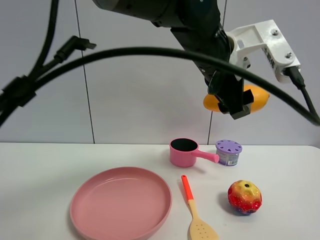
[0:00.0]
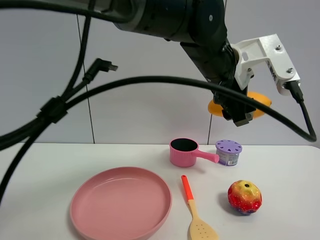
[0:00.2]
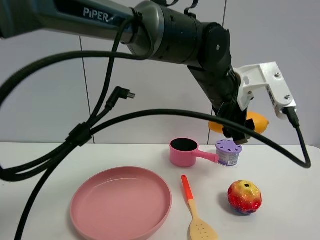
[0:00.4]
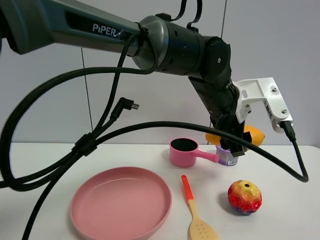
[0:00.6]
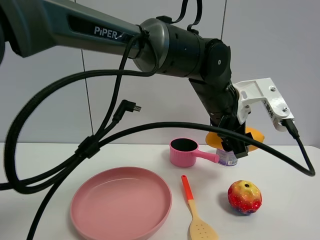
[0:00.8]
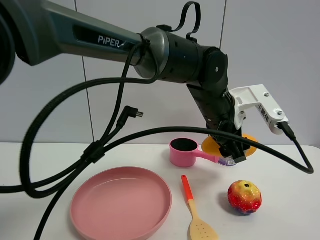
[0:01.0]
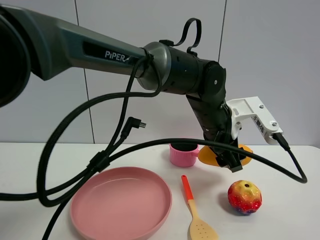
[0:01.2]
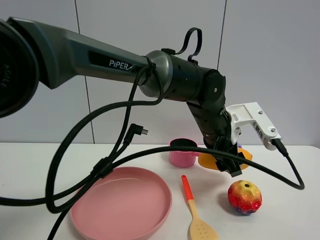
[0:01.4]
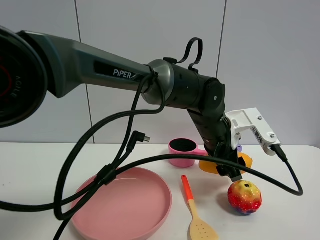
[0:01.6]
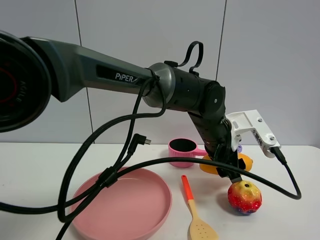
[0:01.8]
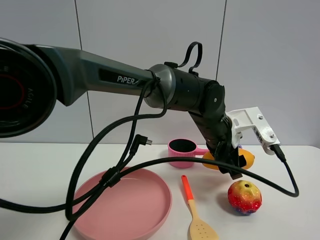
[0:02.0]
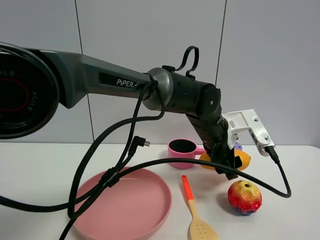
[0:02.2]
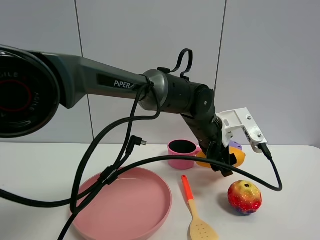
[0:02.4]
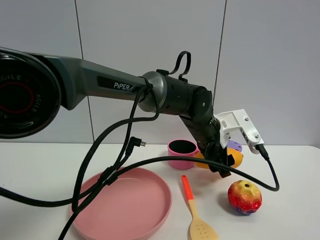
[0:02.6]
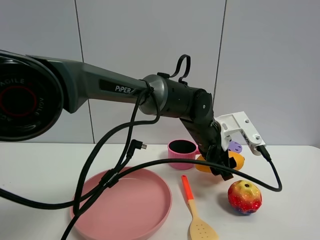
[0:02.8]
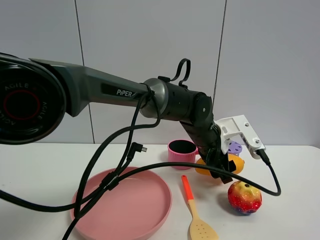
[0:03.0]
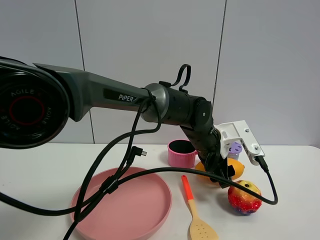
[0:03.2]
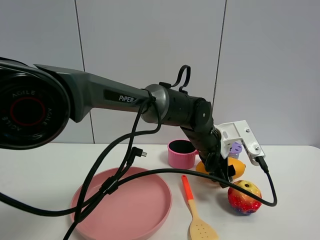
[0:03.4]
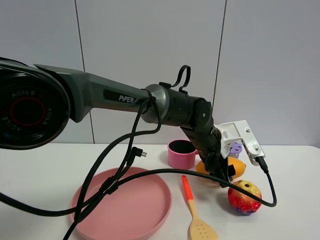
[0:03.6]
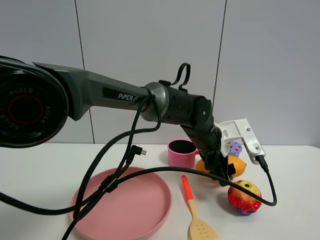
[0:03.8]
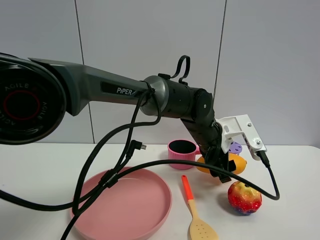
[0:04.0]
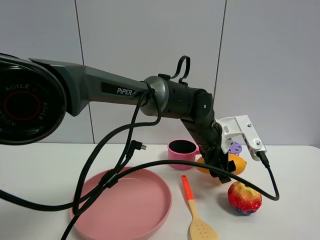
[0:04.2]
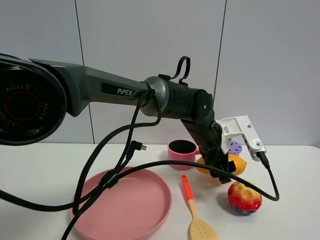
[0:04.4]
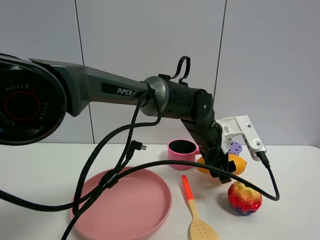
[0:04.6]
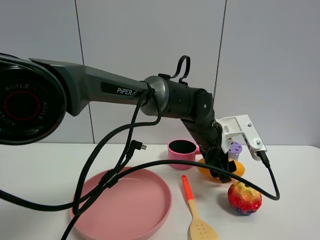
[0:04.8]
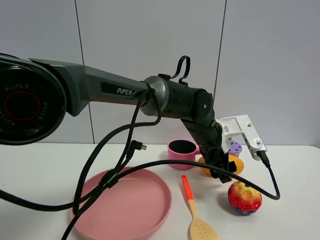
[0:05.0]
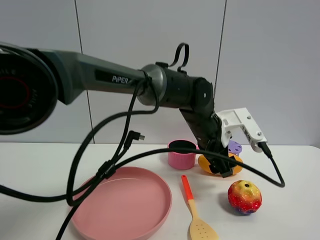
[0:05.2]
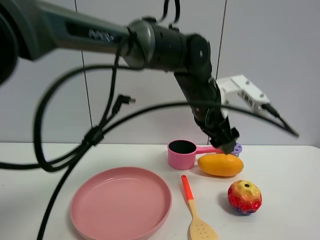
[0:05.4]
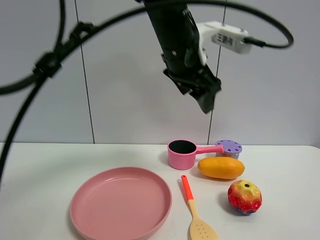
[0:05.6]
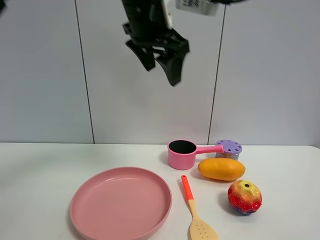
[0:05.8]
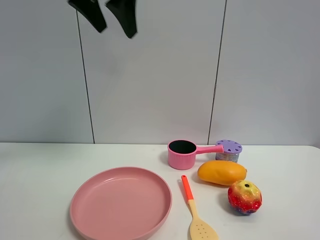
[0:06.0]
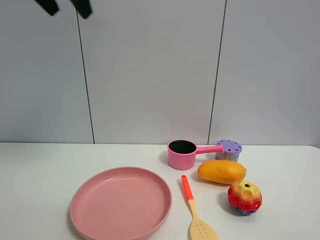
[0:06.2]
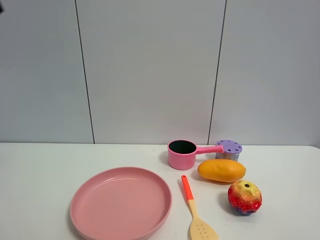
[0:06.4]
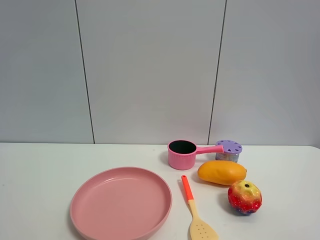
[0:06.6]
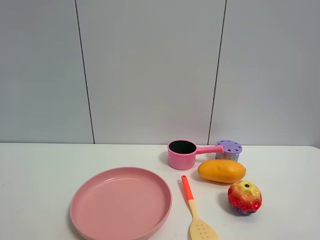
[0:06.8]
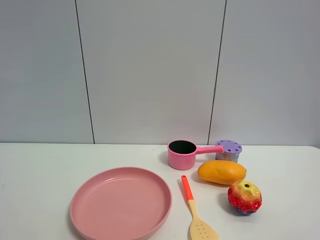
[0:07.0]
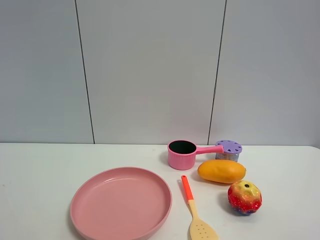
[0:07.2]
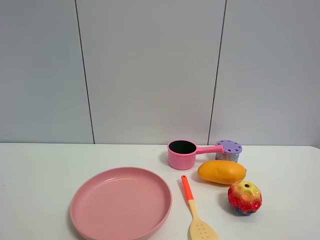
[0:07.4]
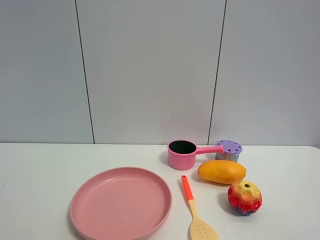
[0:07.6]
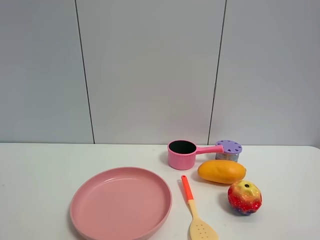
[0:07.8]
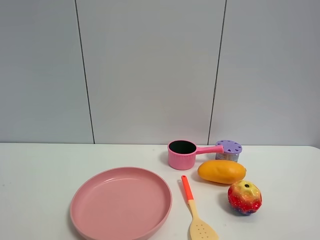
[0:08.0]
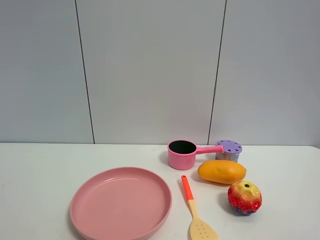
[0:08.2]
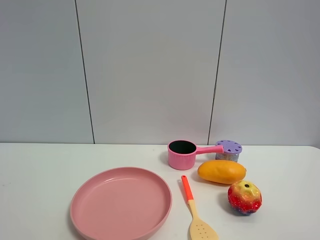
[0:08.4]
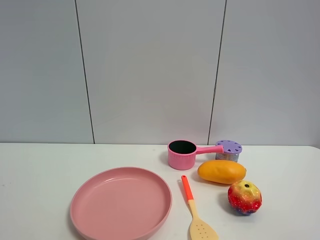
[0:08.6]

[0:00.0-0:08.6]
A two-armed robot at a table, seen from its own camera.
Task of the whole recording: the gripper move the object.
Step, 0:00.0 to 0:05.0: Place the mango on the table with the left gripper.
0:00.0 to 0:01.4: The left gripper goes about 10 cm downward.
0:02.8 to 0:04.4: The grippers make only small movements.
0:04.4 to 0:05.8: The left gripper is displaced upward and to the left by about 30 cm, and opens up.
0:05.8 to 0:07.2: The left gripper goes approximately 40 cm backward and to the left.

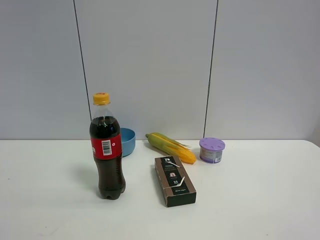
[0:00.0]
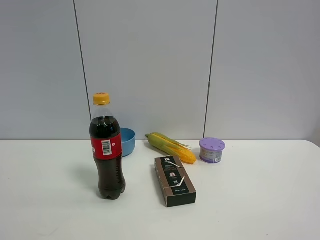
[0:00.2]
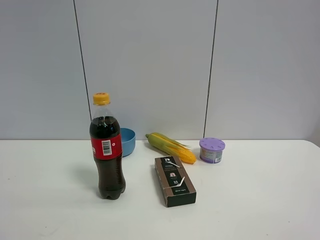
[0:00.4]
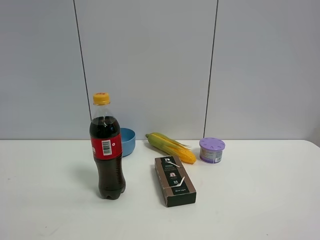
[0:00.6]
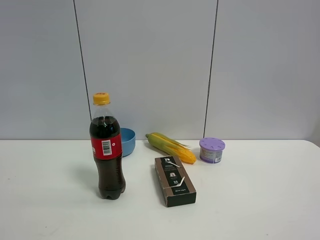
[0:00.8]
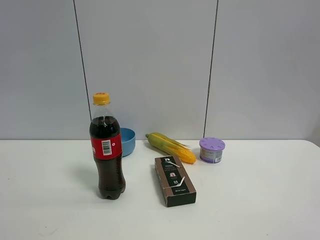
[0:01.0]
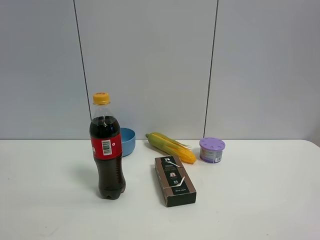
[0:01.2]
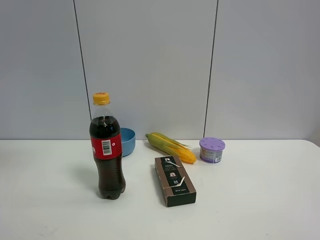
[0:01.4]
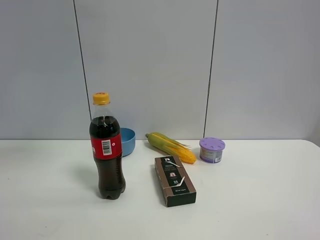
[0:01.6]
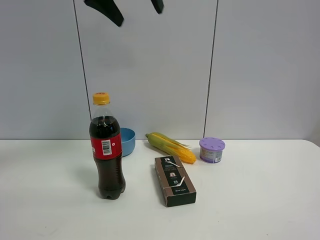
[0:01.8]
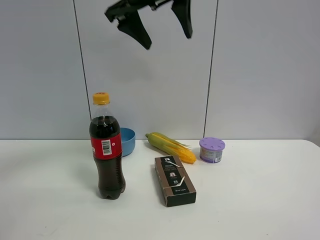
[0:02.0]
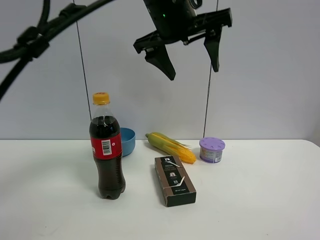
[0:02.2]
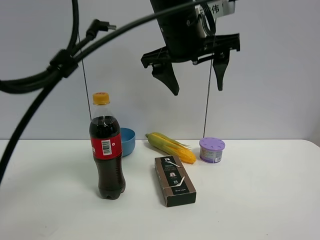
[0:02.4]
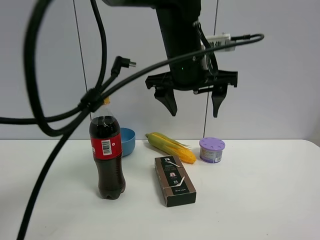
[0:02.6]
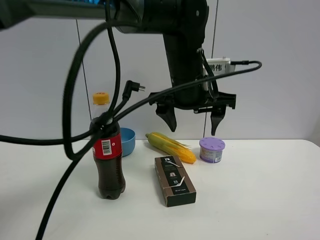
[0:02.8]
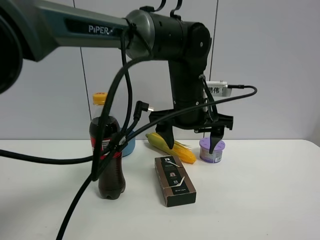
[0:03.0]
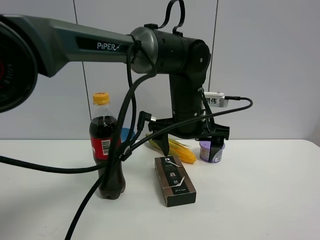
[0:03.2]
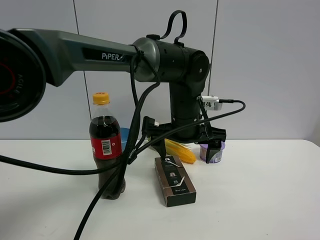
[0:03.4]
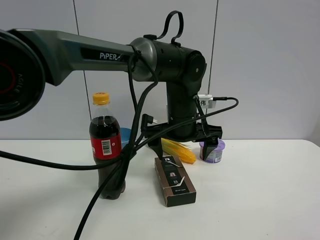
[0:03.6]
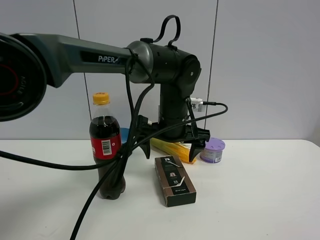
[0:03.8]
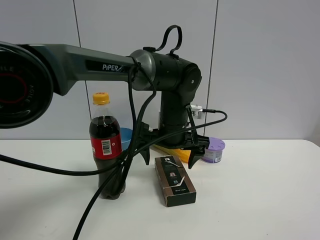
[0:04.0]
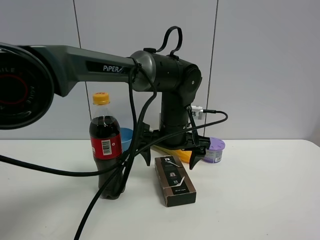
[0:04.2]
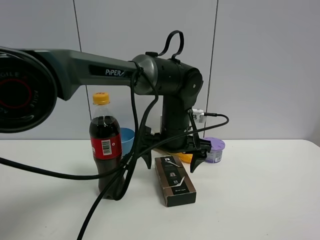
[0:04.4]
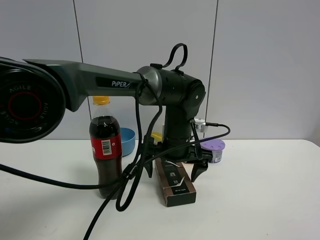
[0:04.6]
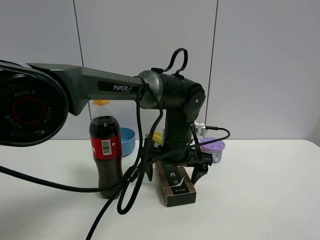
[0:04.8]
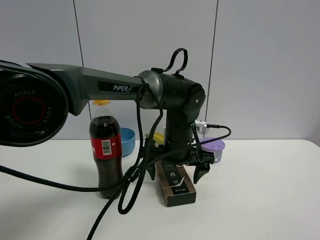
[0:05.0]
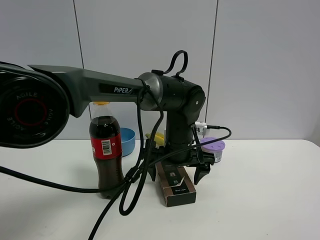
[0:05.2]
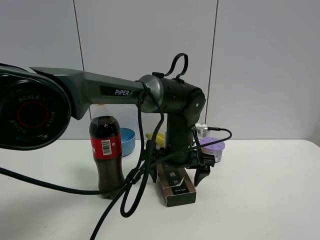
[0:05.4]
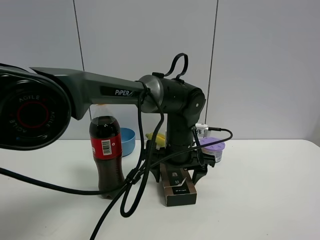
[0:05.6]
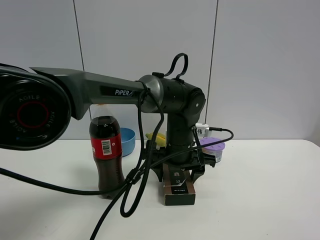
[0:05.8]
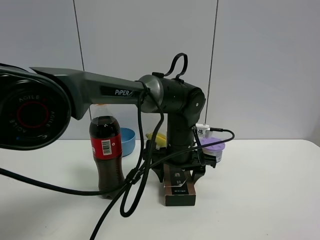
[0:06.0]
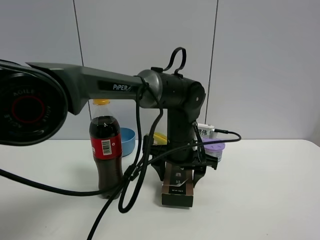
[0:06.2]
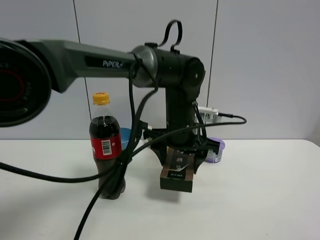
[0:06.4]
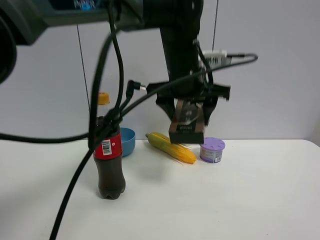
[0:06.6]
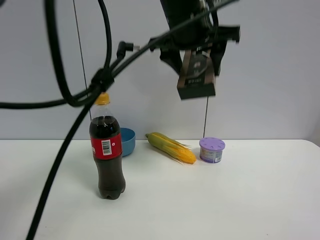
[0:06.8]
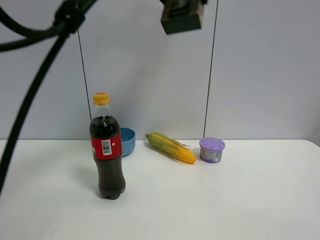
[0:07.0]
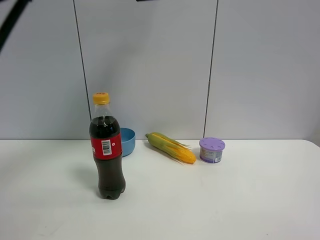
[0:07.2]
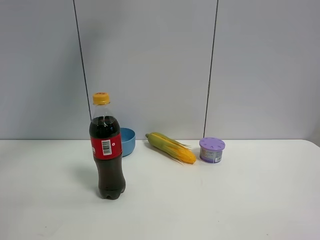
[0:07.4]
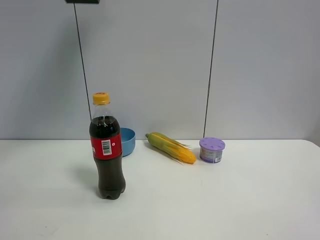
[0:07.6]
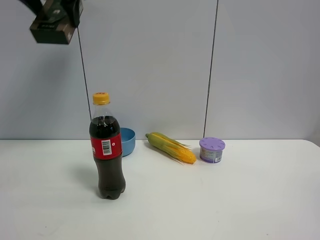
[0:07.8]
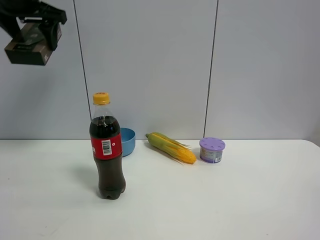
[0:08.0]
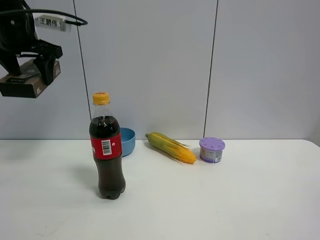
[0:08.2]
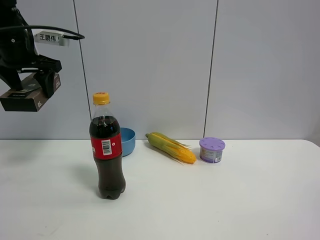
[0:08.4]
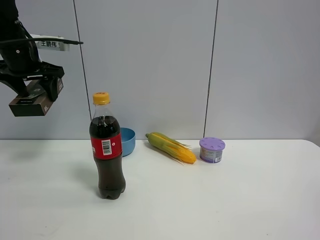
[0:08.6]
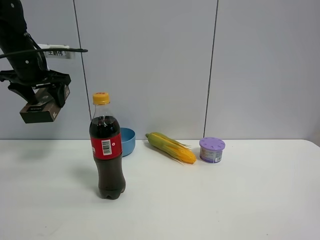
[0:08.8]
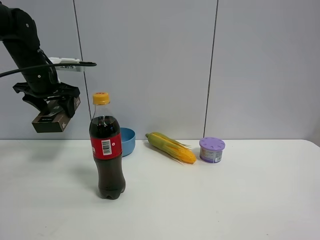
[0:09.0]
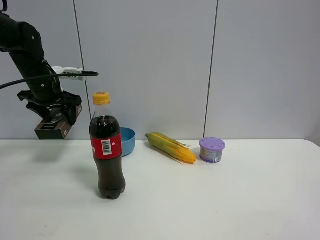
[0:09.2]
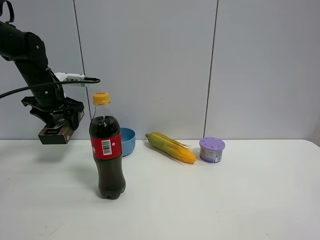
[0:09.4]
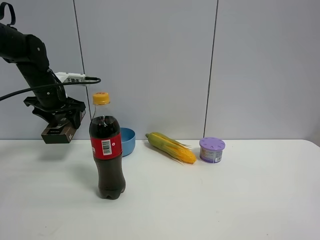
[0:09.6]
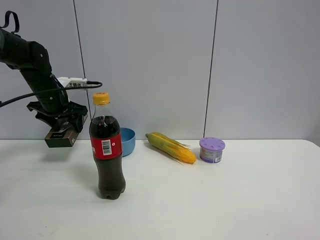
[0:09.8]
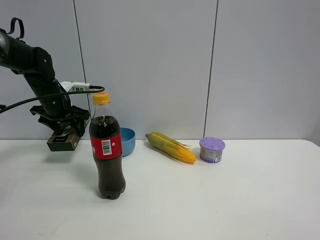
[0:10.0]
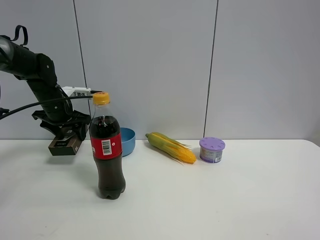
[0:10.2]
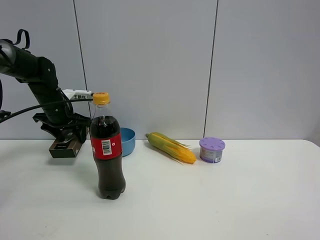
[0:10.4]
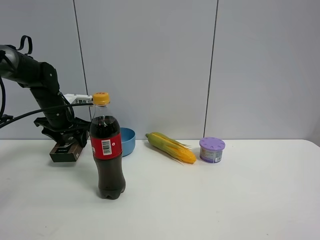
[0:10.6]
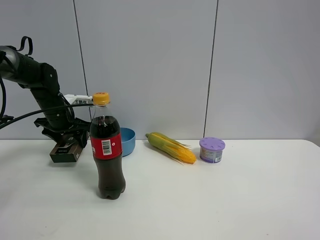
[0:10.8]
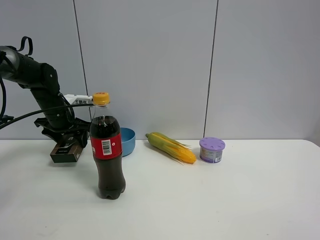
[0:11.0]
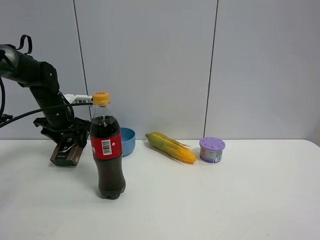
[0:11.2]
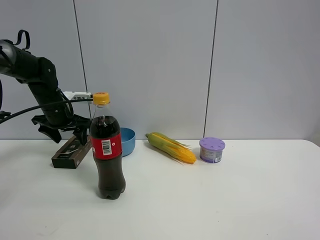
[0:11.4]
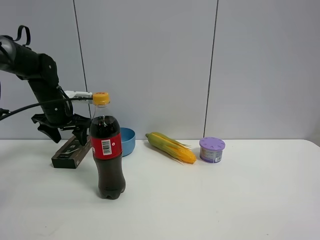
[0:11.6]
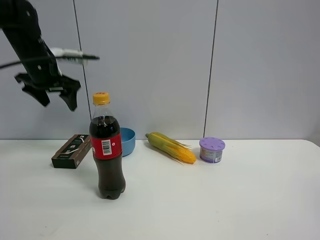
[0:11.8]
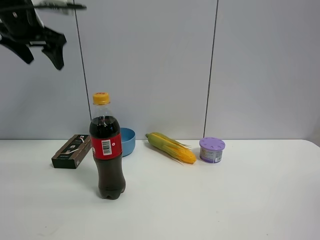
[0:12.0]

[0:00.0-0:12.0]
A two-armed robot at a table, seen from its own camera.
Task of the whole recording: the gripper move the object.
Step, 0:00.0 to 0:06.0: Grasp the black box with the left gripper.
Step, 0:06.2 to 0:11.6: Place the black box on the table with the left gripper.
0:00.0 to 0:01.6: The left gripper shifts roughly 40 cm forward, upward and to the right, and closes.
0:01.6 to 0:03.0: The left gripper heads downward and to the right, covering roughly 35 cm.
0:03.0 to 0:04.4: The left gripper heads downward, covering approximately 5 cm, and opens.
0:04.4 to 0:06.0: The left gripper closes up.
0:06.0 to 0:07.6: The left gripper heads upward and to the left, covering about 40 cm.
0:07.6 to 0:09.0: The left gripper goes some 30 cm downward and to the left.
0:09.0 to 0:10.4: The left gripper moves downward, roughly 10 cm.
0:10.4 to 0:12.0: The left gripper shifts some 20 cm upward.

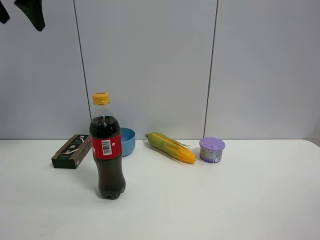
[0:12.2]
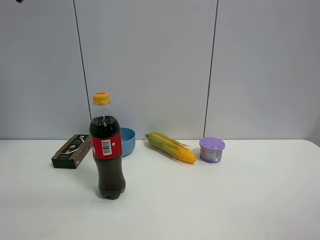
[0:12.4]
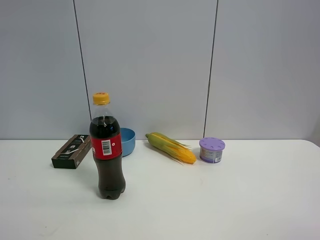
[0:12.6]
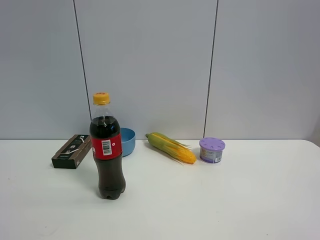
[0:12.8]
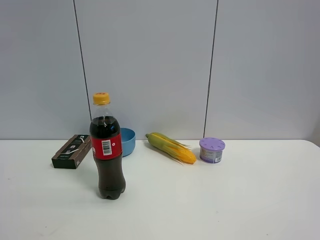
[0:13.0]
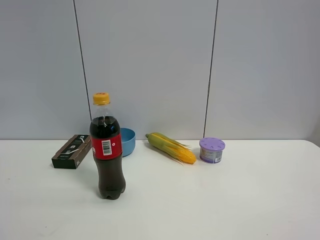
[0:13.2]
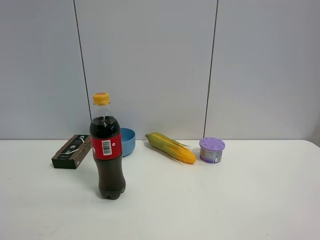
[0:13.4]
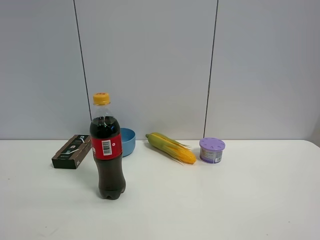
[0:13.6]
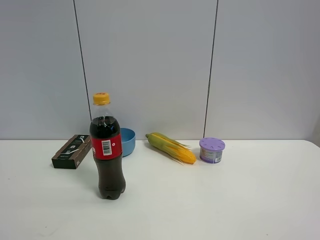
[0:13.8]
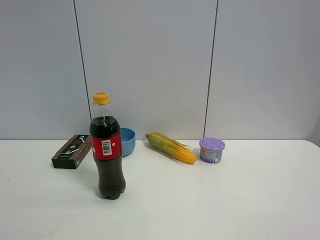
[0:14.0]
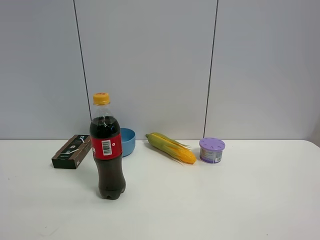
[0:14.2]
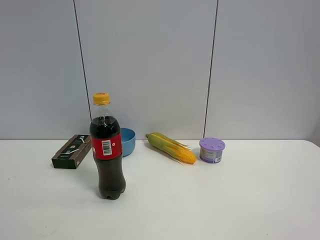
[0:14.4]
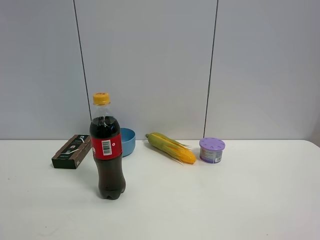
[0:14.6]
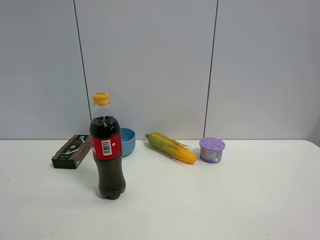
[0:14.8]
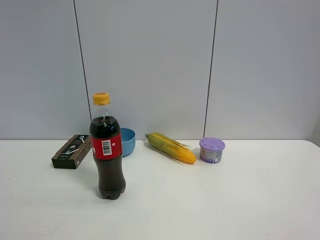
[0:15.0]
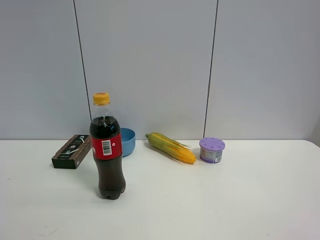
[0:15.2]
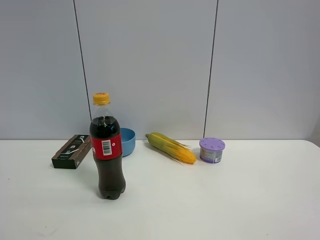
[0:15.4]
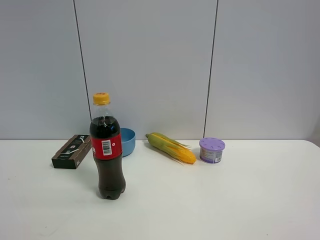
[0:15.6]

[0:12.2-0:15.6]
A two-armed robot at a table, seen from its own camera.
Task of the whole recording: the gripper move the object.
0:12.2 to 0:13.8: The left gripper travels backward by some 40 cm.
